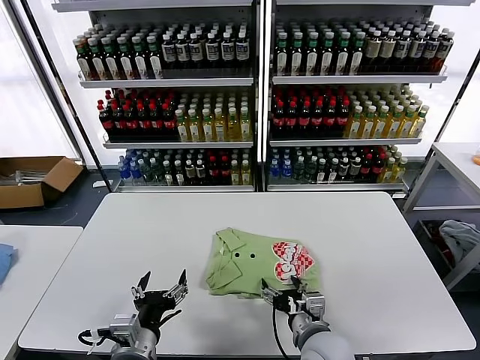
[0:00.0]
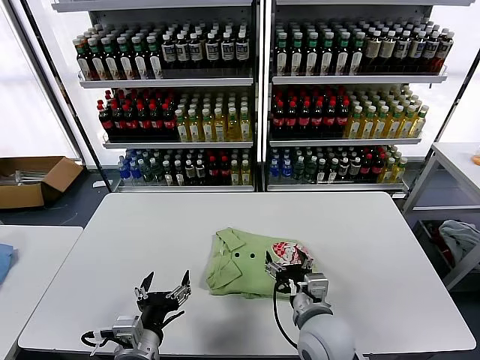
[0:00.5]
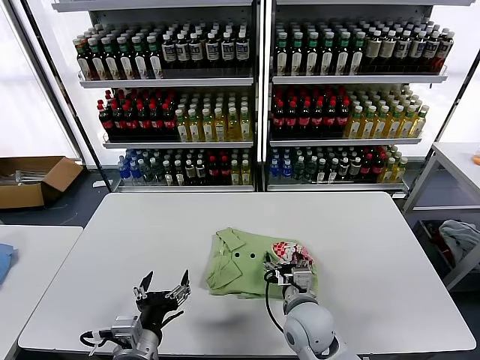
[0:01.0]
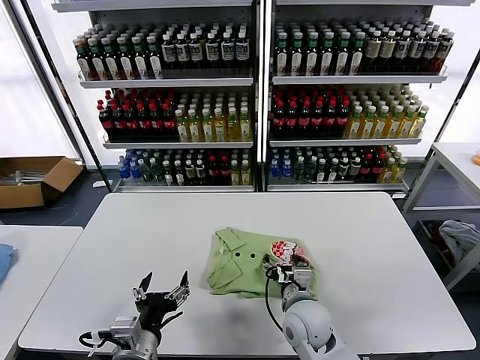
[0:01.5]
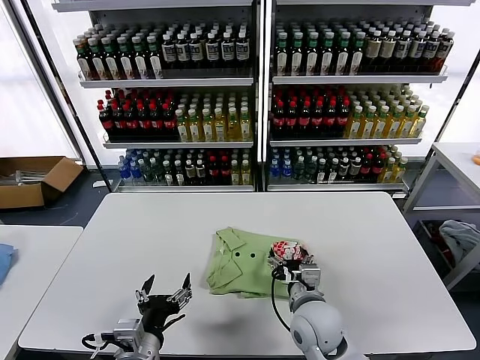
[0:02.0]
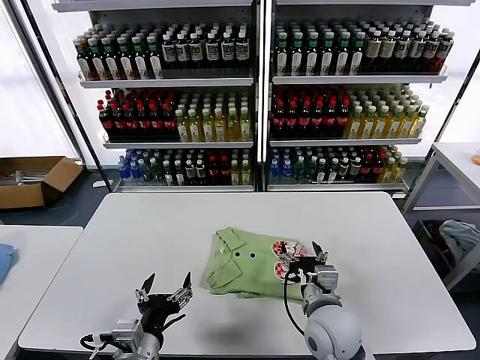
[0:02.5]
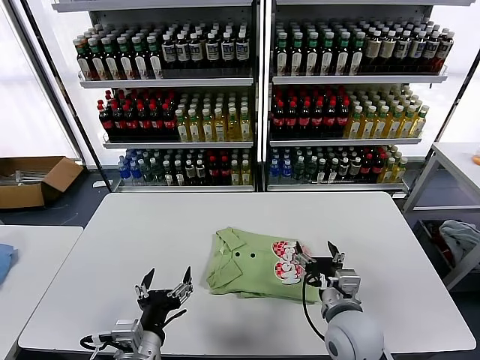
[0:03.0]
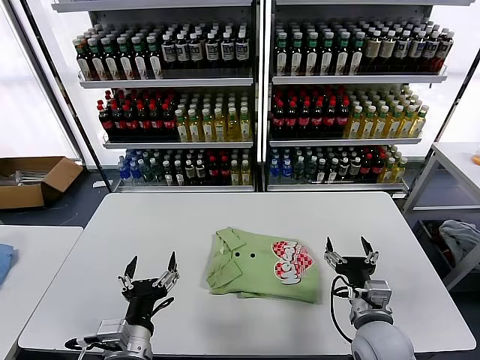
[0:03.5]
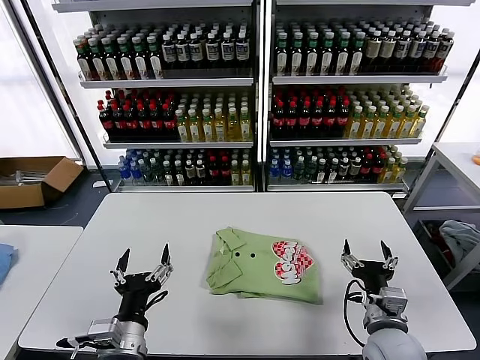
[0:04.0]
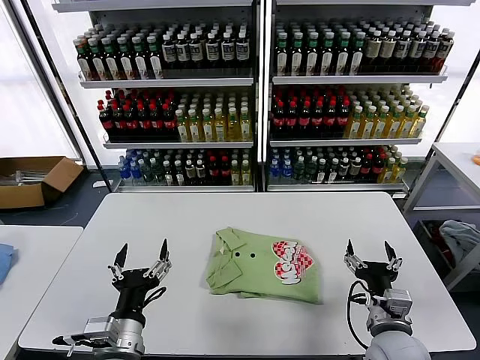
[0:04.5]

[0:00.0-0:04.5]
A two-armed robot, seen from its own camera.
Task of the whole recording: fold and organize the clothes.
0:00.0 to 0:02.0: The right gripper moves forward, approximately 5 cm.
0:02.0 to 0:04.5: The right gripper travels to the right and backward by roughly 15 cm.
